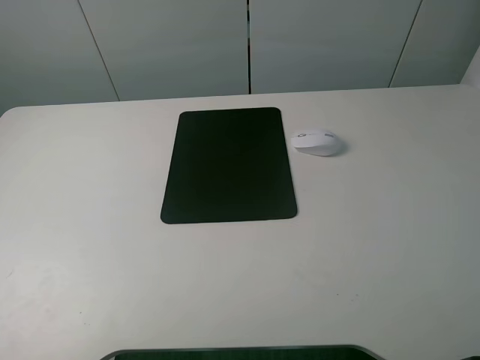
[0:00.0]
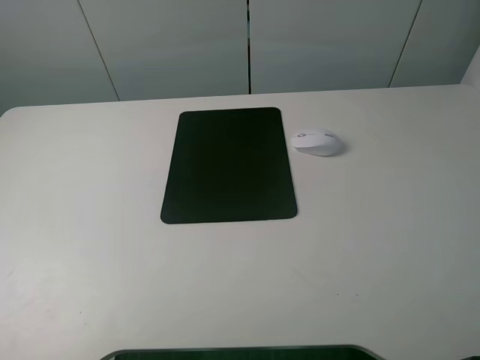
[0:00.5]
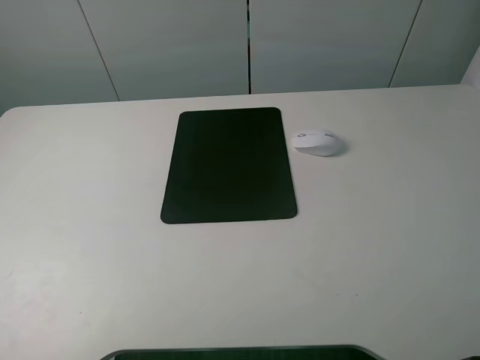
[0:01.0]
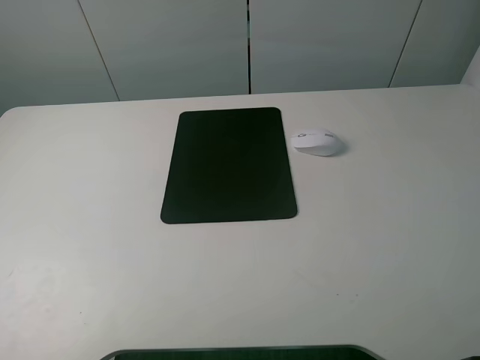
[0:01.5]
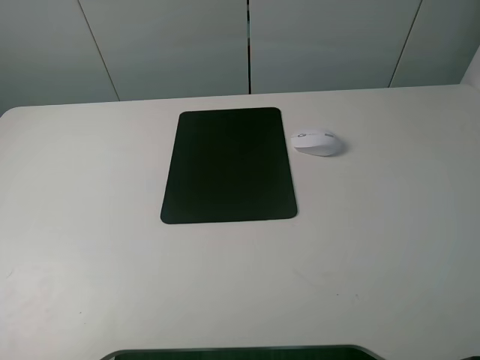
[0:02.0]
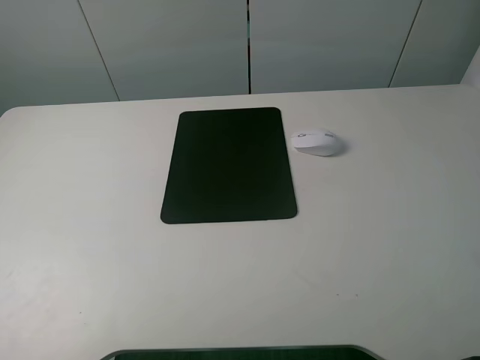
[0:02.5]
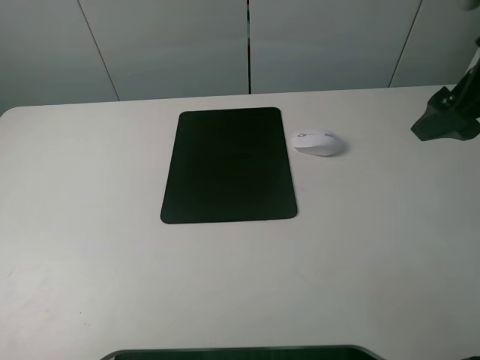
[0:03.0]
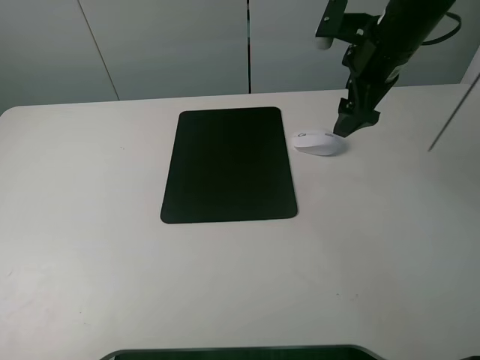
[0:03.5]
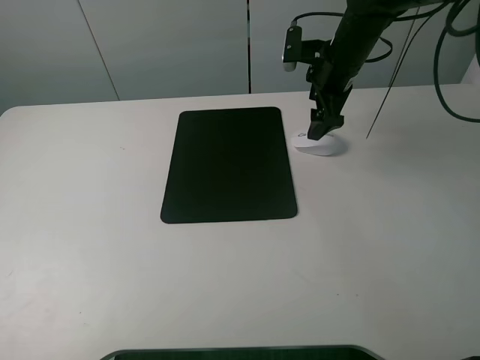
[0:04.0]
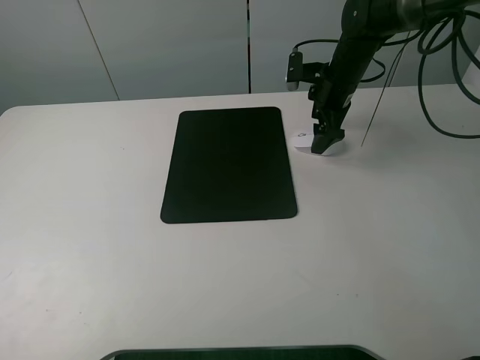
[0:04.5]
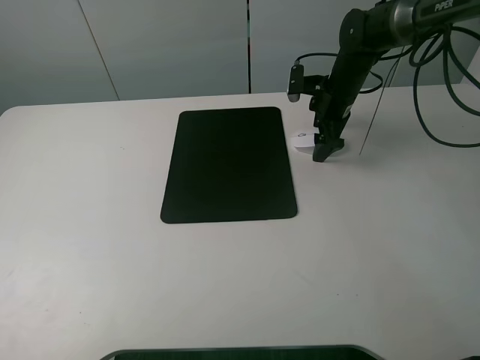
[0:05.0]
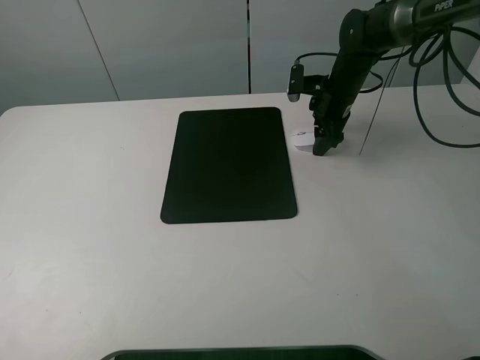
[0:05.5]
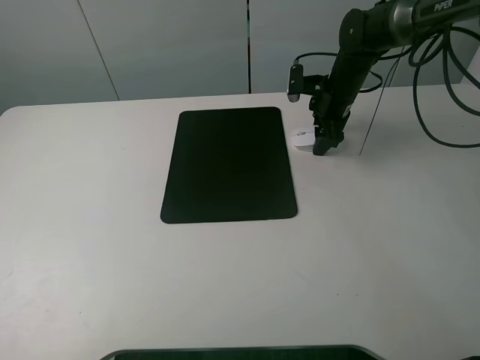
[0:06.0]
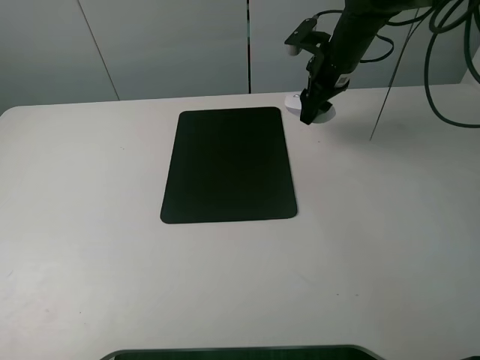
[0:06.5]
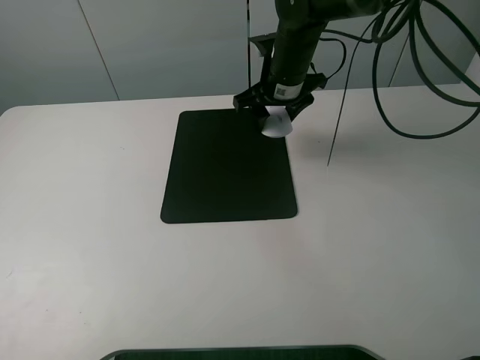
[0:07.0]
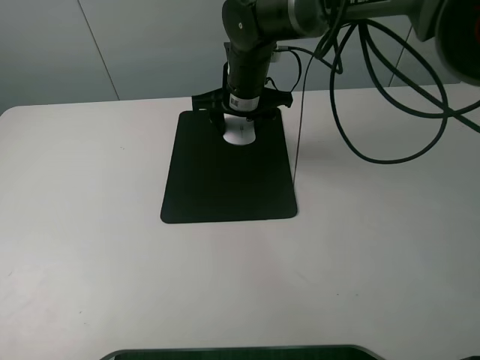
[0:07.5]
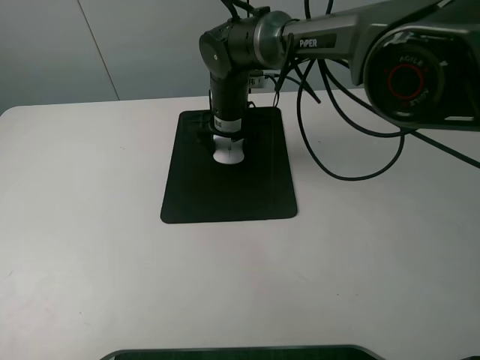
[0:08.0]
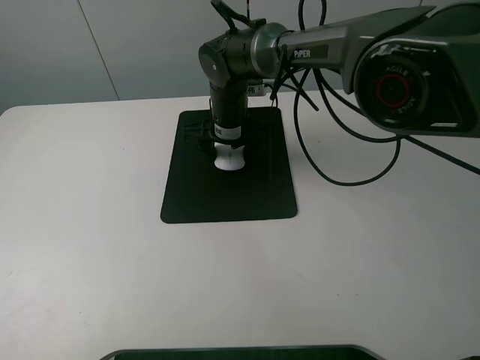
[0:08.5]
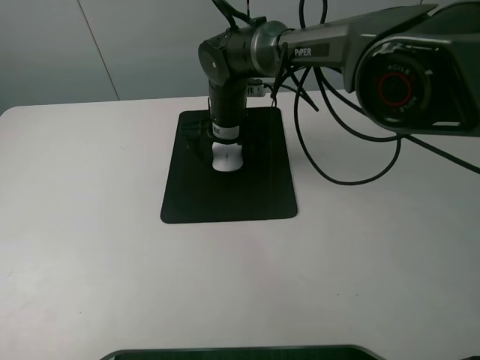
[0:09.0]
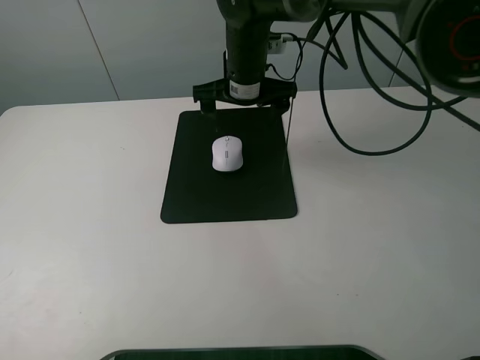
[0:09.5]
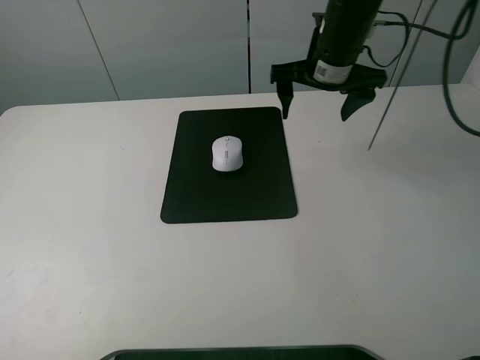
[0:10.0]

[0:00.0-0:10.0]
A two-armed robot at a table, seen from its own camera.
Step, 0:00.0 to 0:06.0: Grasp the mouse with the right gripper.
Step, 0:06.5 to 0:08.5: Place the mouse on the mouse mat with the right gripper.
0:00.0 to 0:02.0: Both grippers stay about where they are.
0:02.0 to 0:04.0: The right gripper moves forward, roughly 40 cm.
0:04.0 to 0:06.0: The right gripper is displaced downward by roughly 5 cm, and closes its fingers.
0:06.0 to 0:08.0: The right gripper travels to the left by about 20 cm.
0:08.0 to 0:10.0: The right gripper travels to the right and upward by roughly 20 cm, and opens.

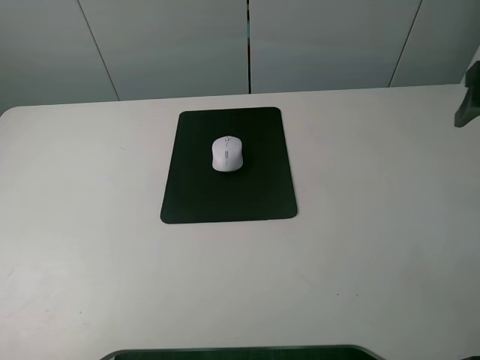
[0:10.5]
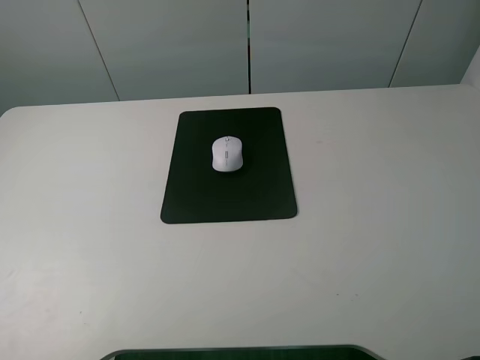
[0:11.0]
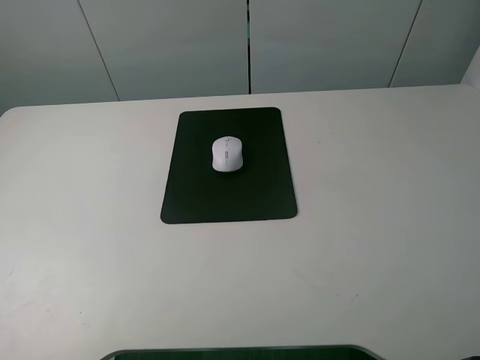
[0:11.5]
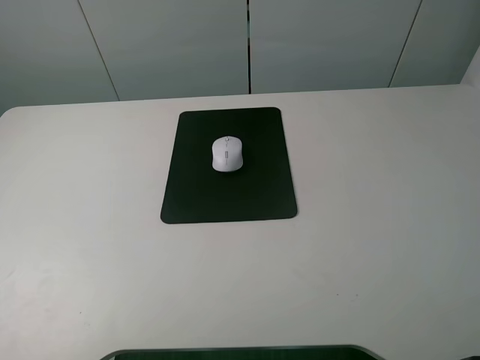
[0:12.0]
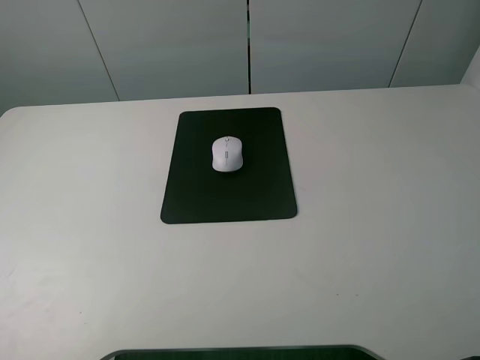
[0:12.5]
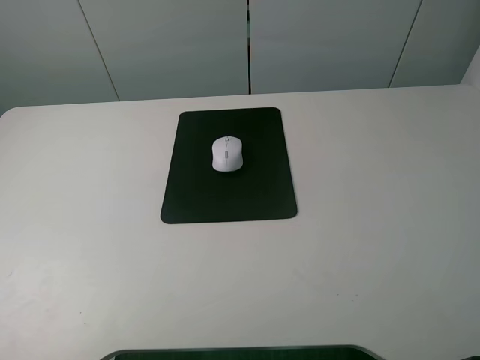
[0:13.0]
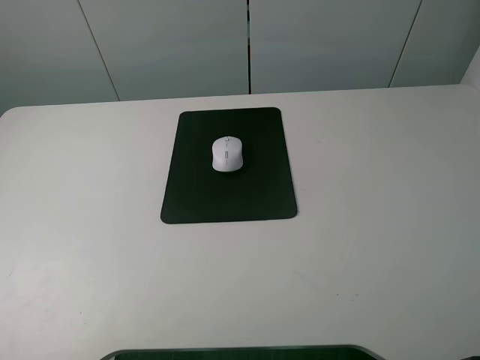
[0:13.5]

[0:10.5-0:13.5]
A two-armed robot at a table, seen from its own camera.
0:12.0 to 0:13.5: Both grippers stay about where they are.

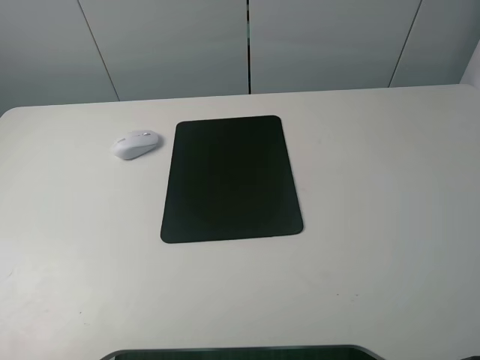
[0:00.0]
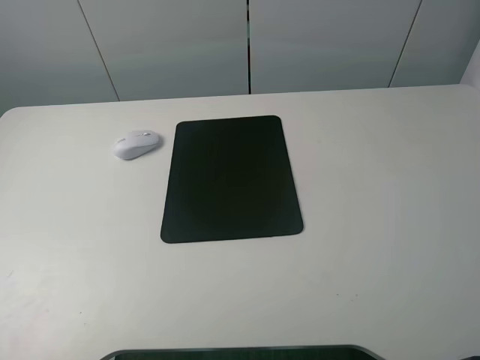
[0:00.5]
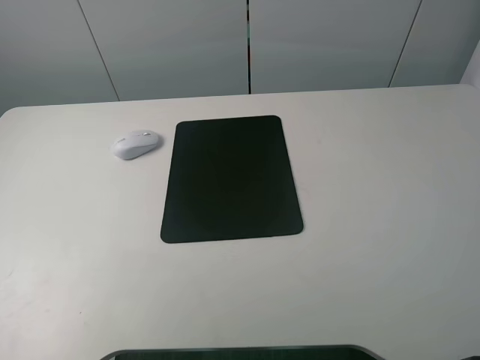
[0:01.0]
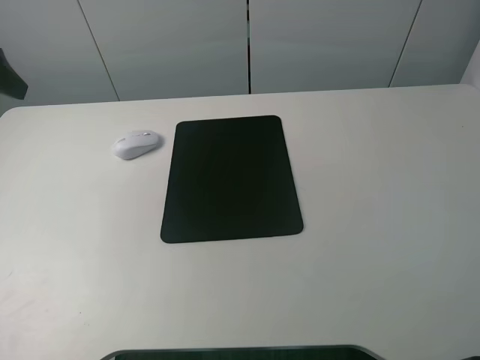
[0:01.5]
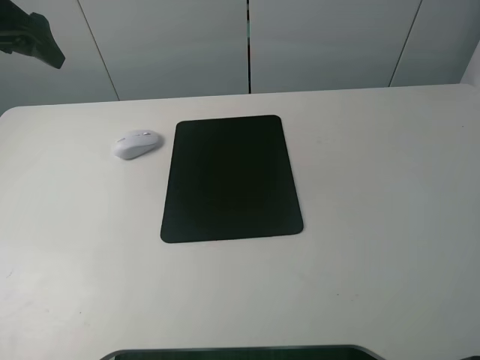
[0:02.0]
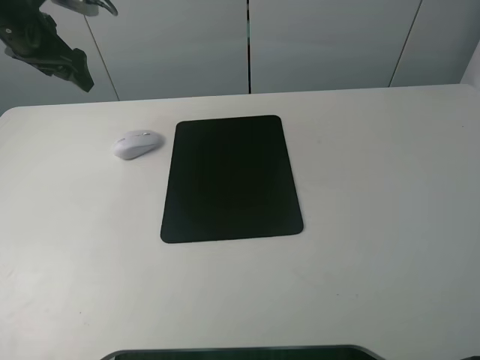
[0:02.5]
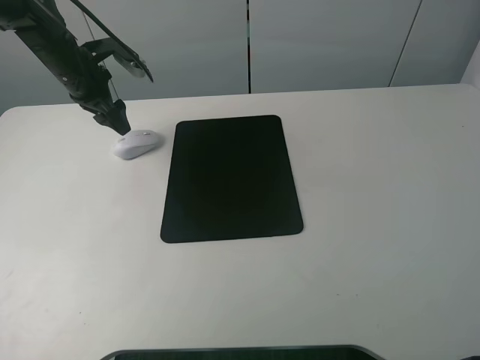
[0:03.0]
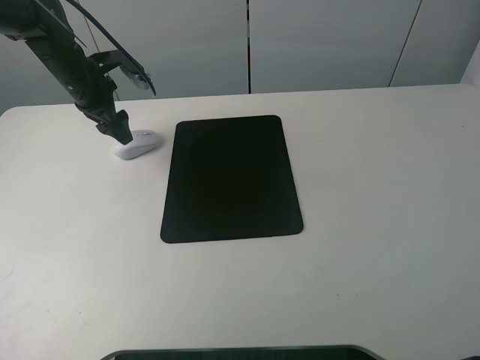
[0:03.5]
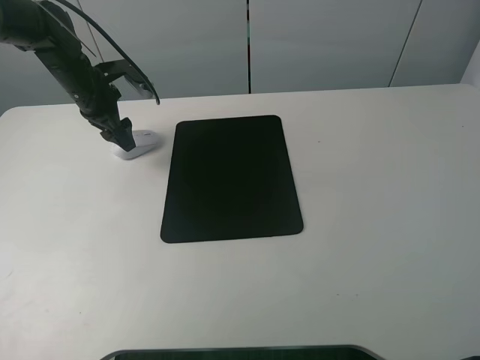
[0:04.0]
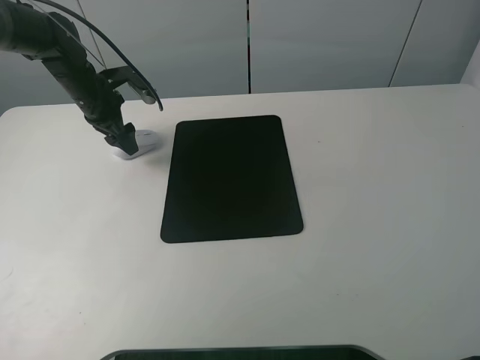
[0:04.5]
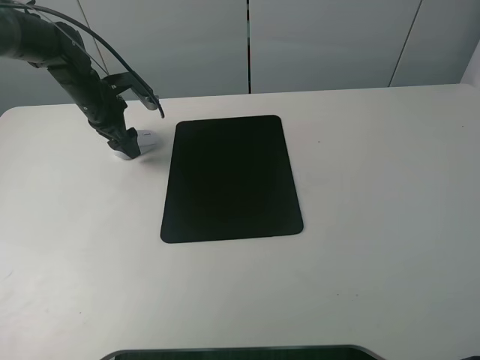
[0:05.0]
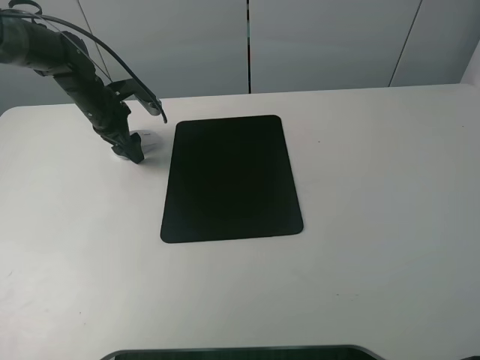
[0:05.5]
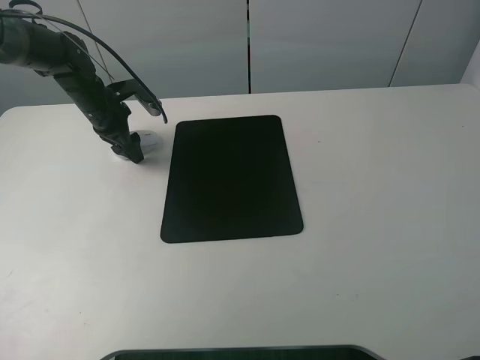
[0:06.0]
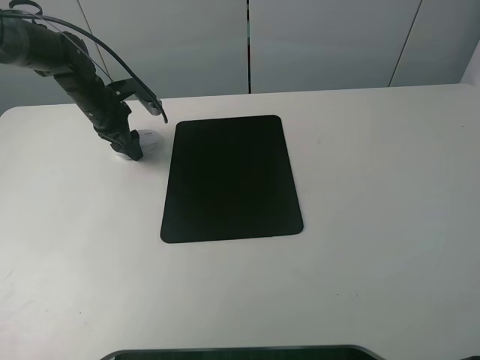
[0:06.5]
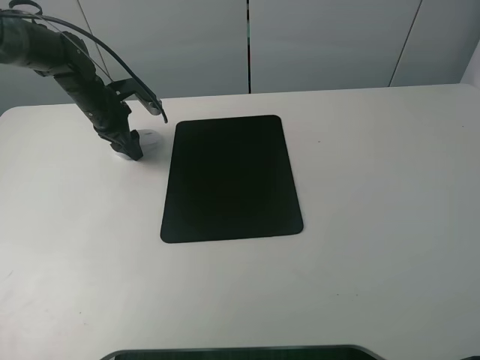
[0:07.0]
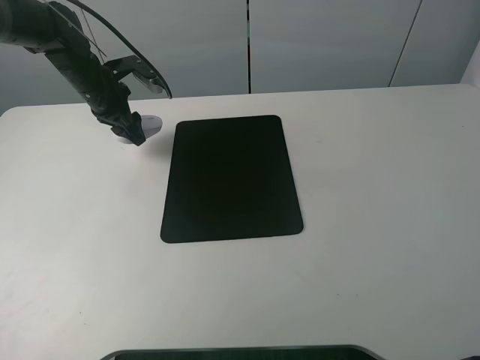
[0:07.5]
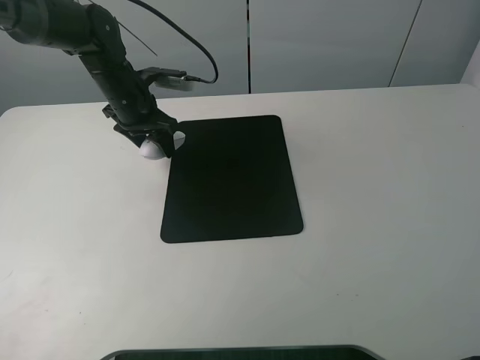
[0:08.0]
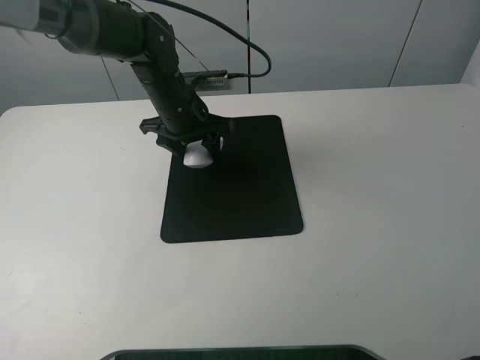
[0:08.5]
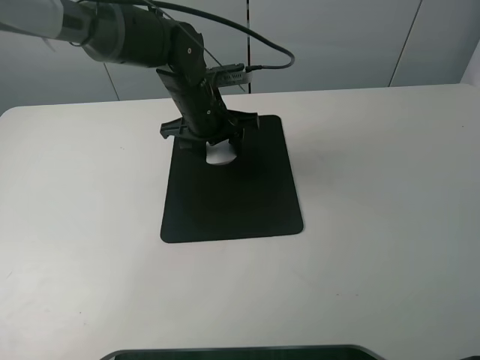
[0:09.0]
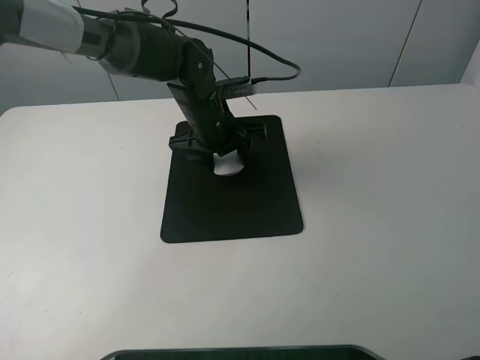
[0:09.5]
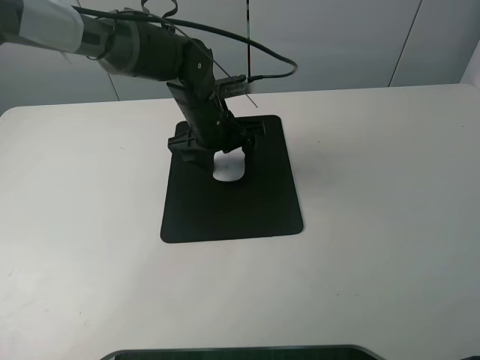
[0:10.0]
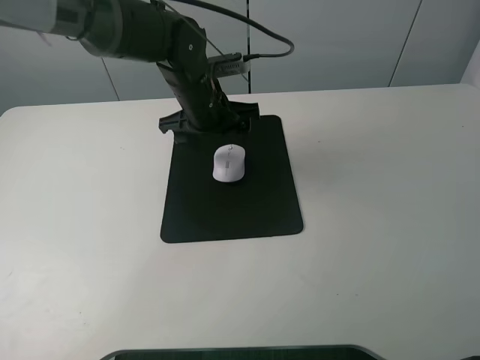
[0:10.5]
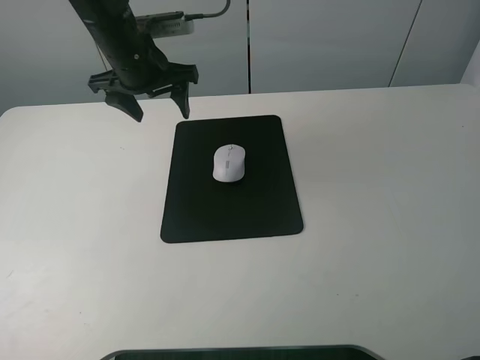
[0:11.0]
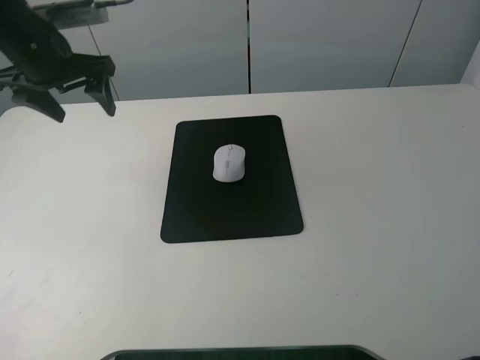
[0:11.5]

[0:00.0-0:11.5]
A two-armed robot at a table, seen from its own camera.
Step, 0:00.0 to 0:06.5: Grasp the mouse with the left gripper.
Step, 0:07.0 to 0:10.0: Place the mouse on the mouse mat with the left gripper.
0:00.0 to 0:02.0: The left gripper is displaced forward by about 35 cm.
0:02.0 to 0:04.0: The left gripper travels downward and forward by some 20 cm.
0:04.0 to 0:06.0: The left gripper closes its fingers.
0:06.0 to 0:07.5: The left gripper closes its fingers.
0:07.5 to 0:09.5: The left gripper moves to the right, approximately 20 cm.
0:09.5 to 0:11.5: The left gripper moves to the left and upward, roughly 25 cm, and opens its fingers.

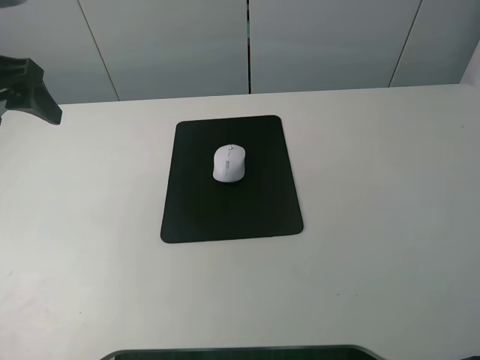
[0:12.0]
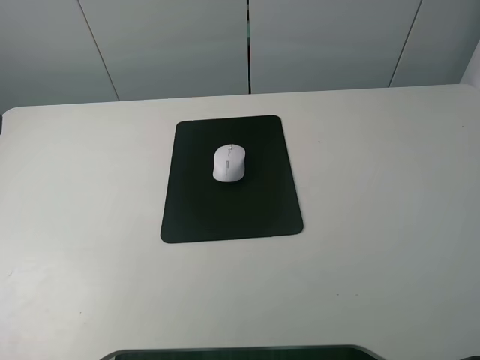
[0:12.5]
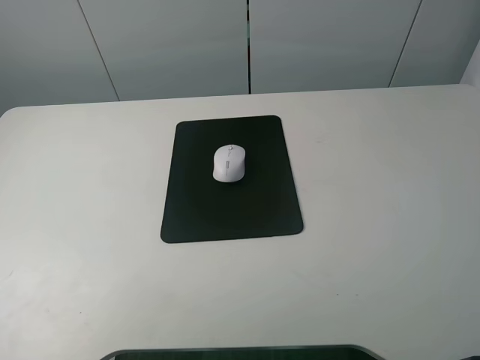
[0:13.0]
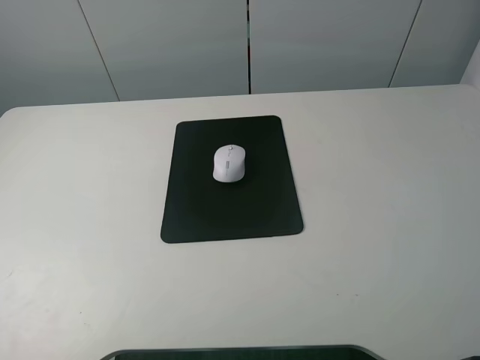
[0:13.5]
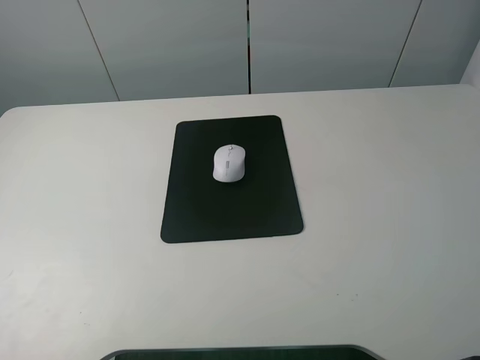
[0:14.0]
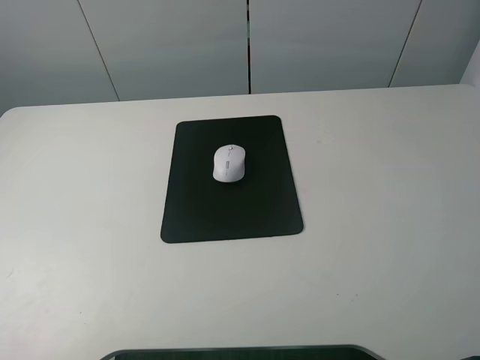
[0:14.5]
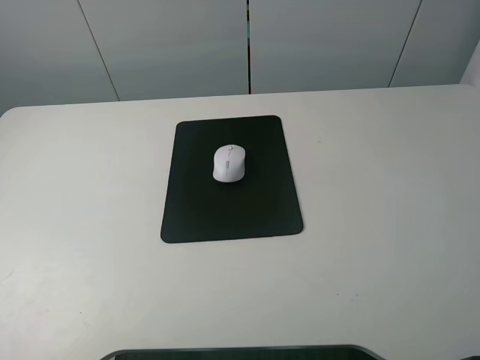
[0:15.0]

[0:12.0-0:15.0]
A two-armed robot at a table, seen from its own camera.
0:12.0 to 0:13.5: The left gripper moves backward, approximately 25 cm.
